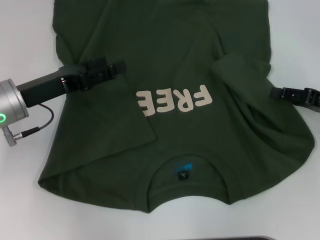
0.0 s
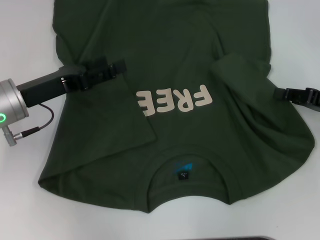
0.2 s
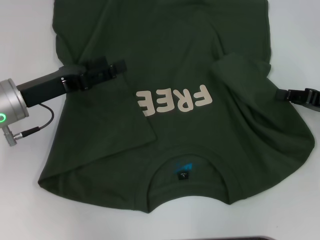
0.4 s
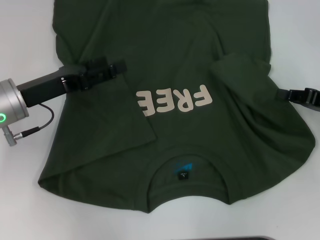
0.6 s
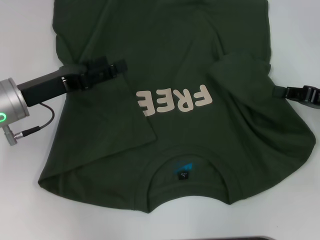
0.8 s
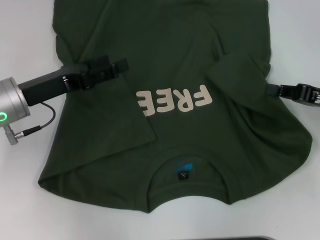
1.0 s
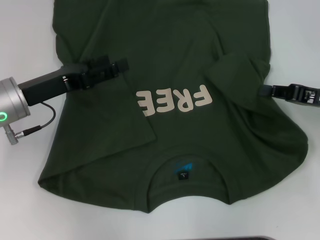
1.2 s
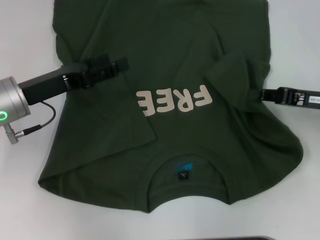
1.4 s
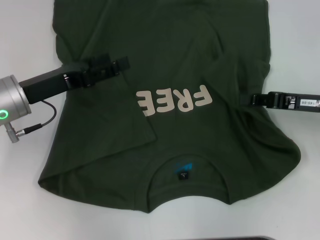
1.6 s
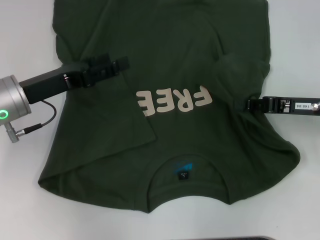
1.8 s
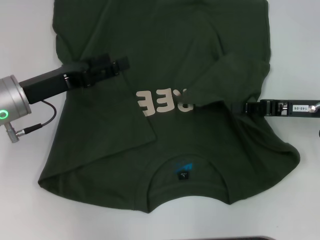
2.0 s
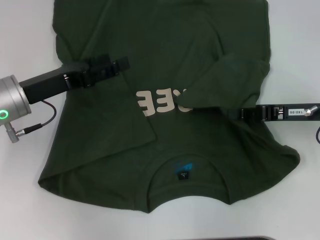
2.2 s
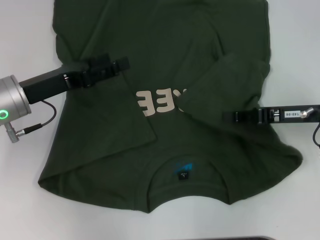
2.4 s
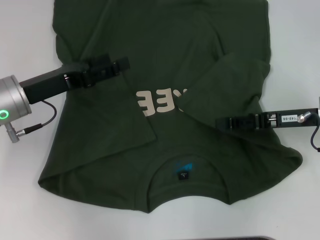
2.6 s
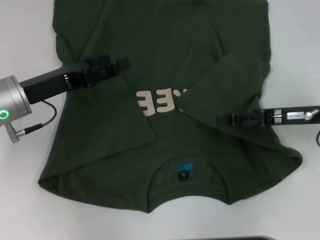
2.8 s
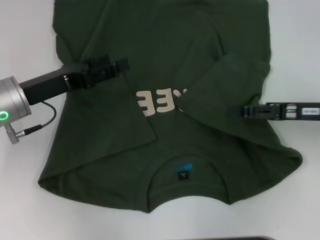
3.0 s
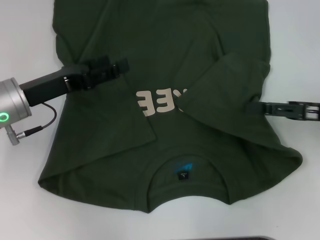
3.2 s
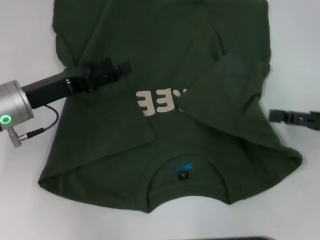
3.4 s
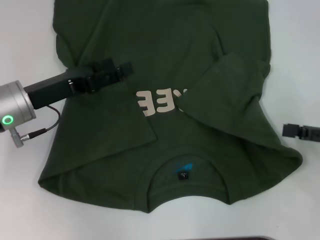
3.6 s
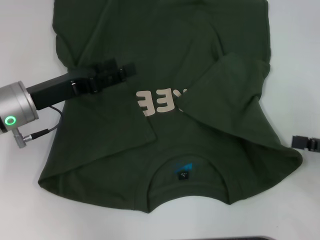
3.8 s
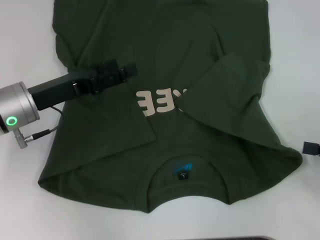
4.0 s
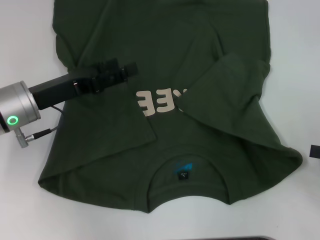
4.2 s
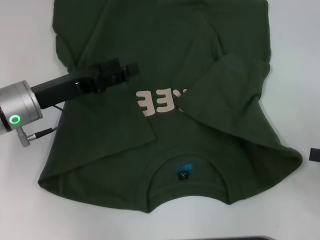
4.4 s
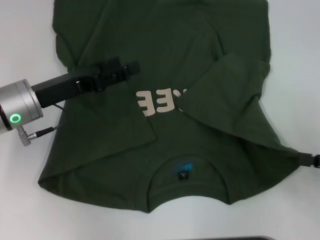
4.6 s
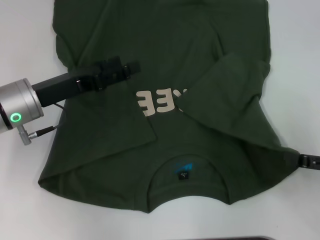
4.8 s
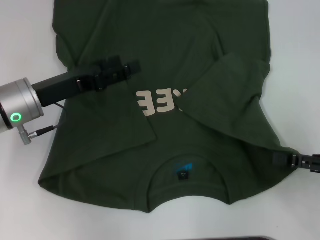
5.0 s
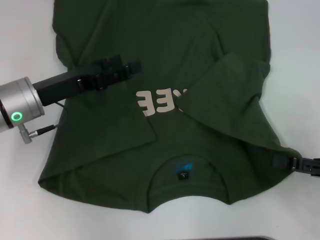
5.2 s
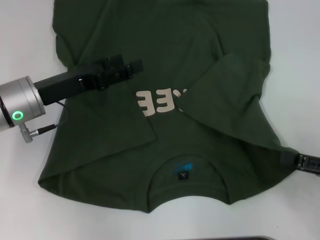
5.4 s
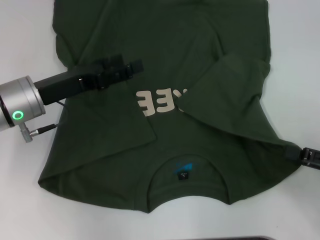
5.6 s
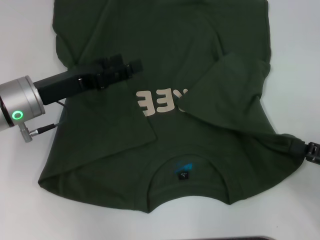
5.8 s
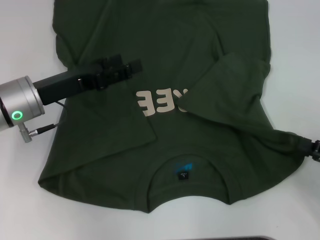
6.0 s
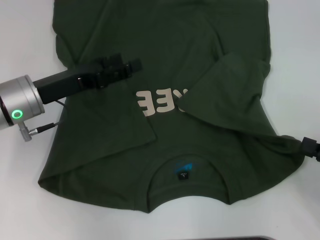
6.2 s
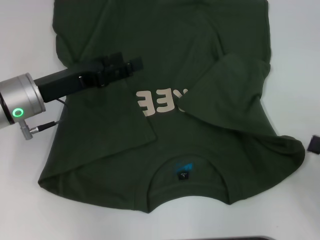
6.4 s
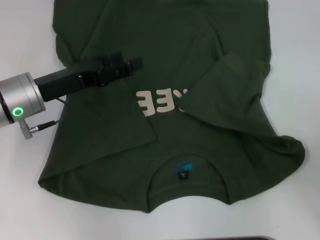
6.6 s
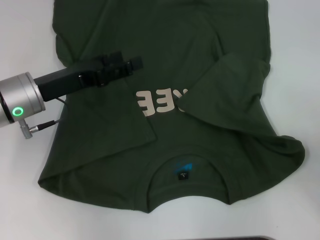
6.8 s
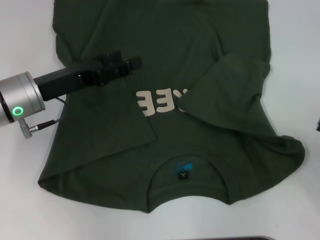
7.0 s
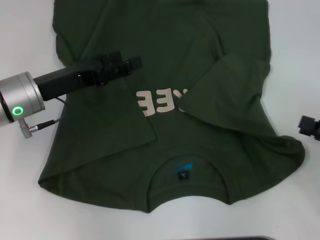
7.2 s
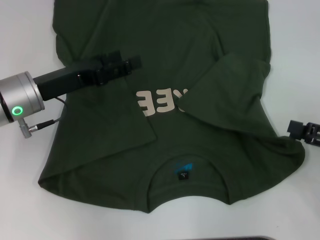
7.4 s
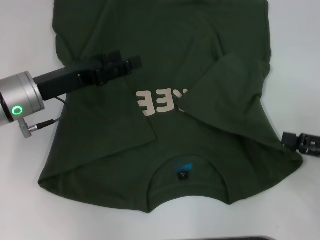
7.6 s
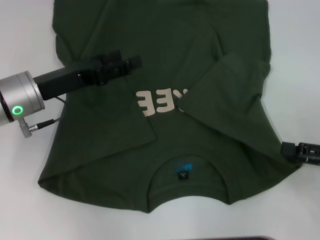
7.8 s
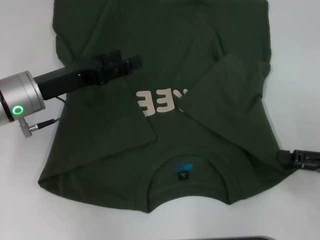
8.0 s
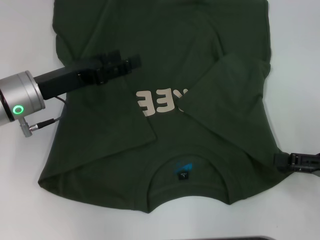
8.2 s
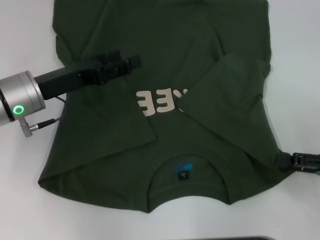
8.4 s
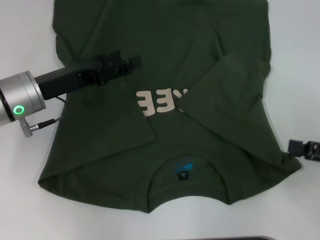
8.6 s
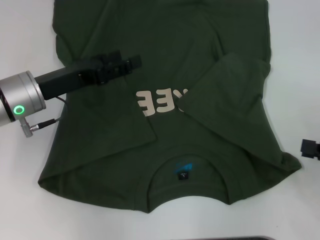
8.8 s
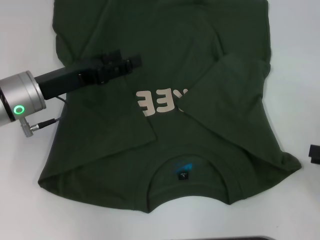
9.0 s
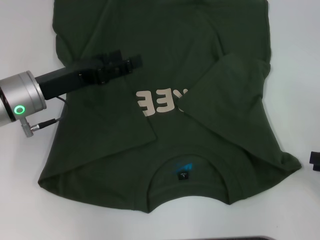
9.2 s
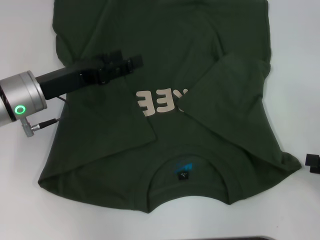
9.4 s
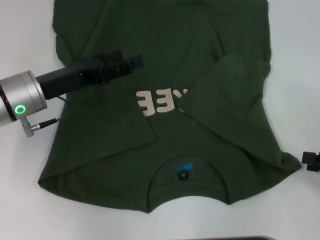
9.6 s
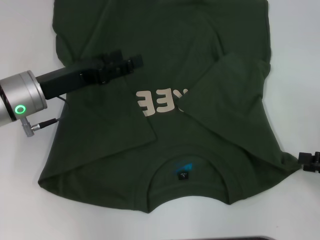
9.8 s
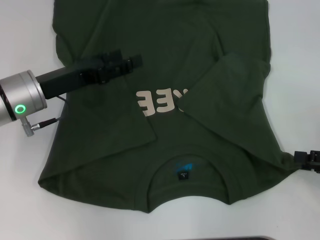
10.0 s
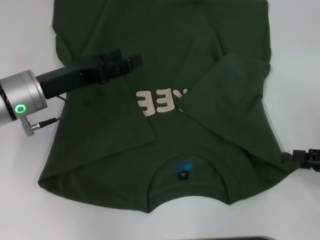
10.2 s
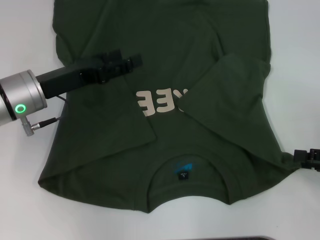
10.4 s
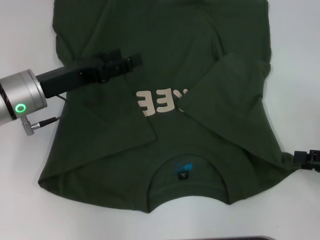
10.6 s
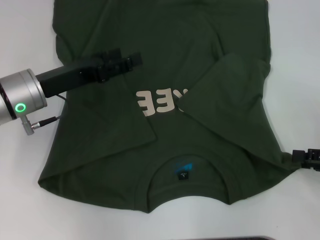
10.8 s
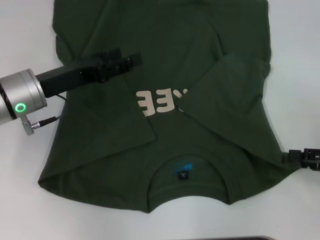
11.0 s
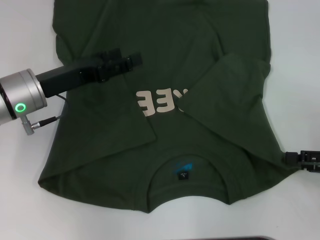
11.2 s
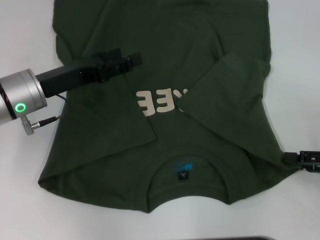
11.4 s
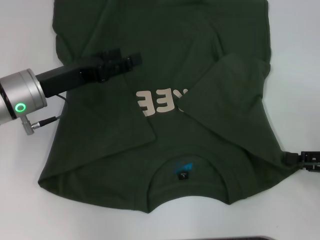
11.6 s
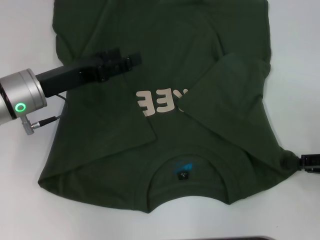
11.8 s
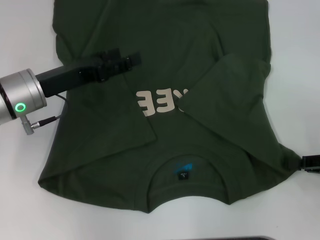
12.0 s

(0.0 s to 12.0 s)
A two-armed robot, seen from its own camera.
Step, 0.0 s - 3.4 s: Fold the bottom right sleeve with your right hand.
0.0 s - 1.6 s: The right gripper travels to the left by roughly 5 cm, and closes.
1.6 s - 3.0 s: The right gripper opens its fingers.
3.0 s - 4.4 s: The right gripper moves backward and to the right, about 15 cm.
4.4 s - 10.4 s: The grippers move only a little.
10.4 s - 12.0 s: The right gripper closes up.

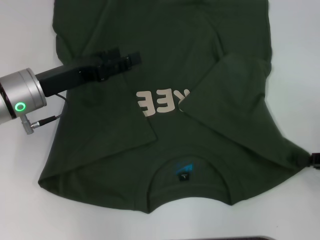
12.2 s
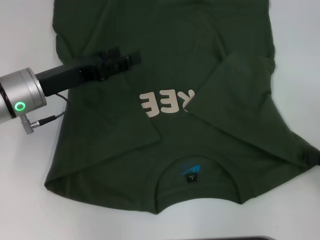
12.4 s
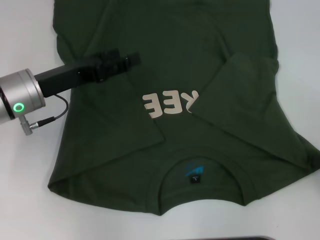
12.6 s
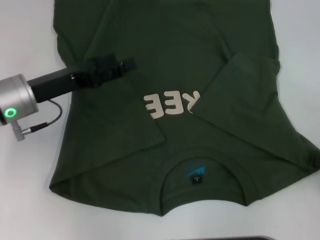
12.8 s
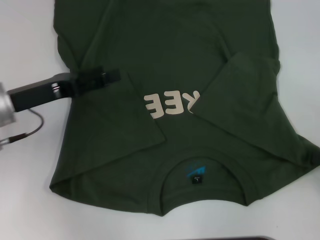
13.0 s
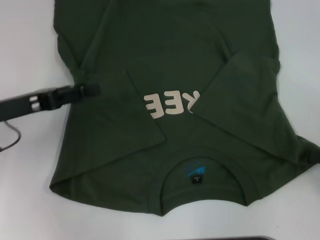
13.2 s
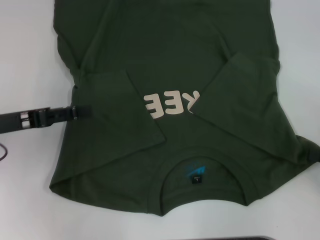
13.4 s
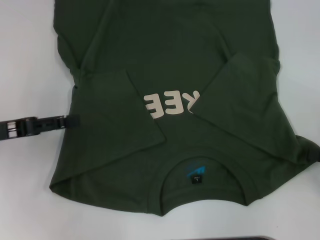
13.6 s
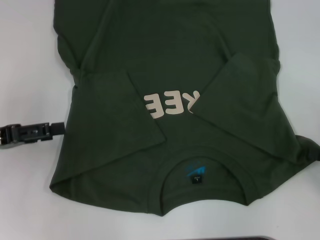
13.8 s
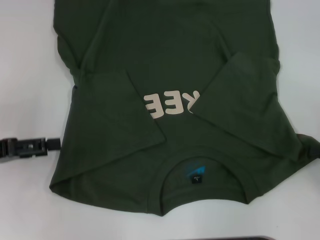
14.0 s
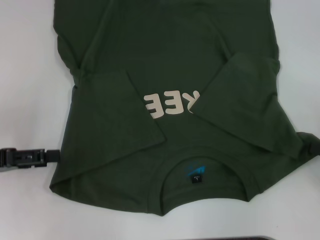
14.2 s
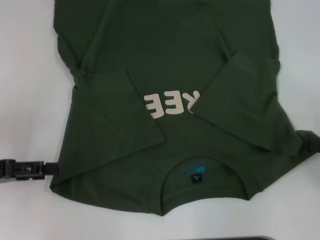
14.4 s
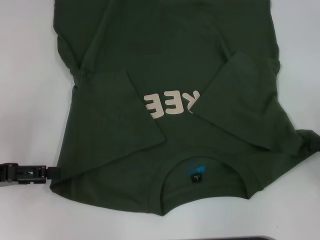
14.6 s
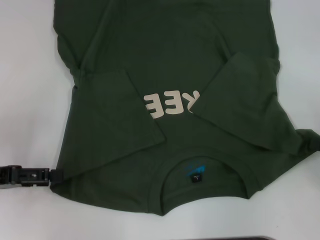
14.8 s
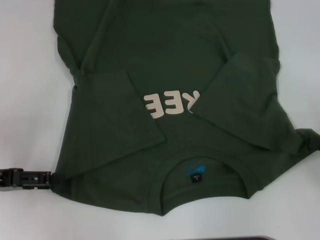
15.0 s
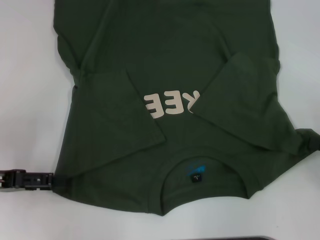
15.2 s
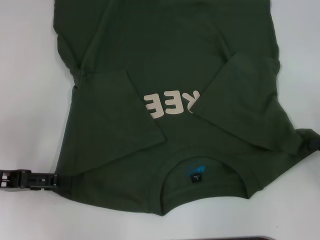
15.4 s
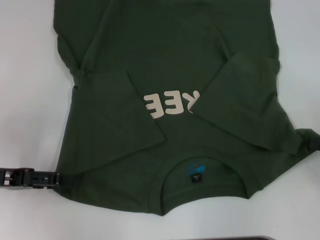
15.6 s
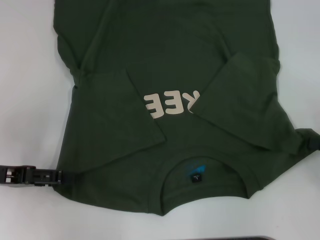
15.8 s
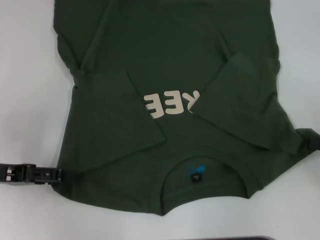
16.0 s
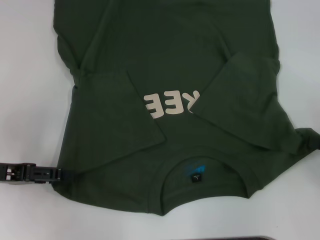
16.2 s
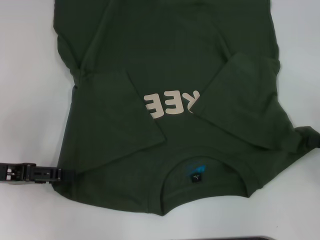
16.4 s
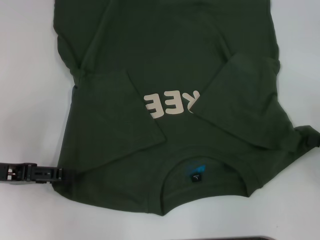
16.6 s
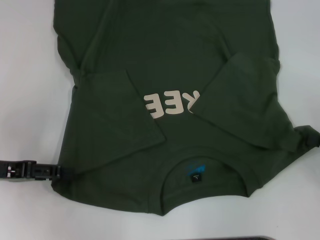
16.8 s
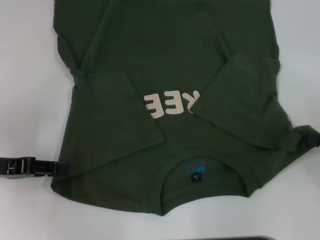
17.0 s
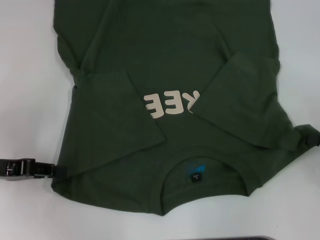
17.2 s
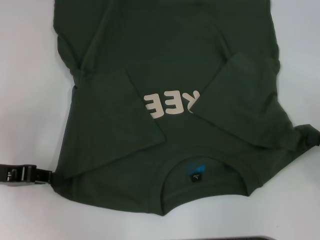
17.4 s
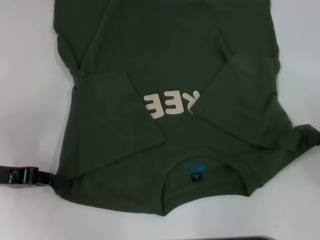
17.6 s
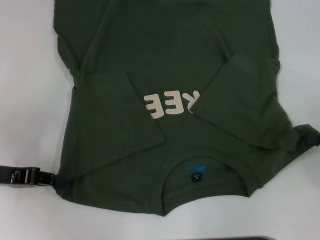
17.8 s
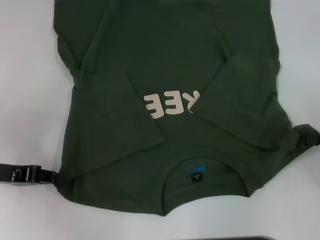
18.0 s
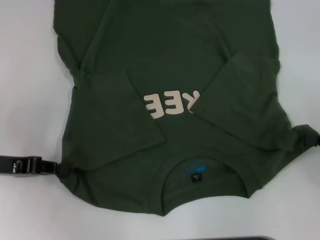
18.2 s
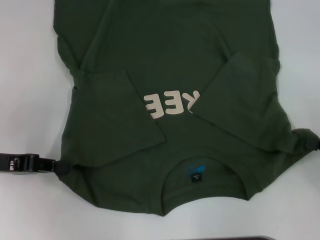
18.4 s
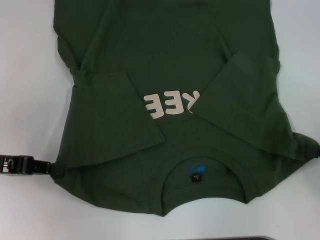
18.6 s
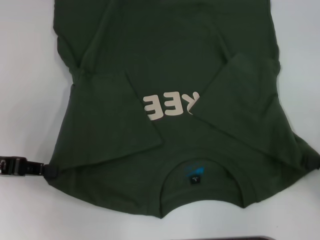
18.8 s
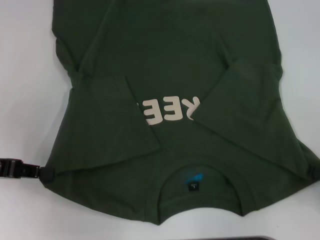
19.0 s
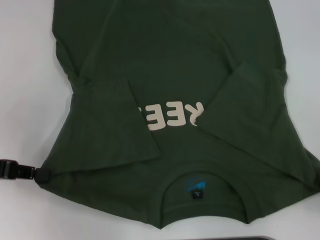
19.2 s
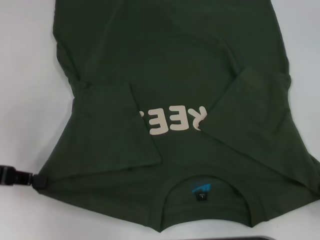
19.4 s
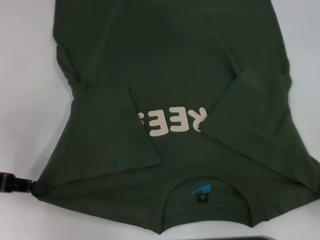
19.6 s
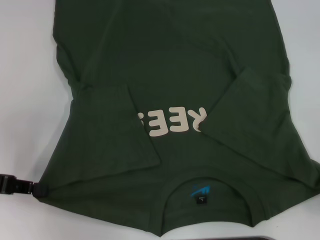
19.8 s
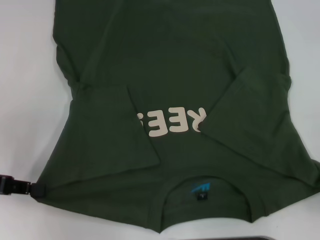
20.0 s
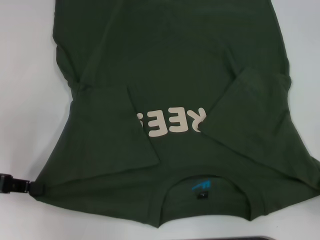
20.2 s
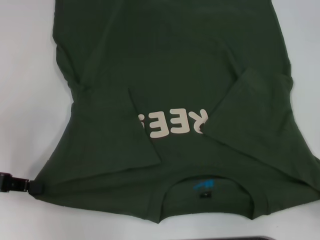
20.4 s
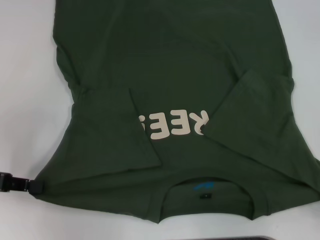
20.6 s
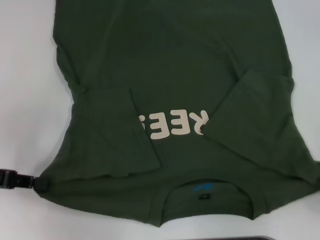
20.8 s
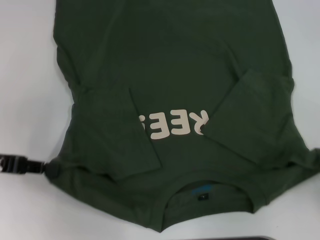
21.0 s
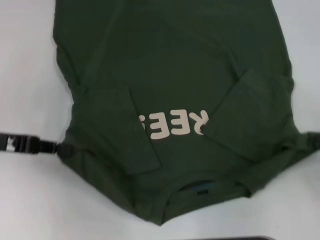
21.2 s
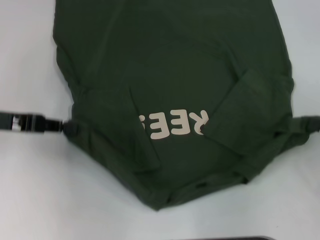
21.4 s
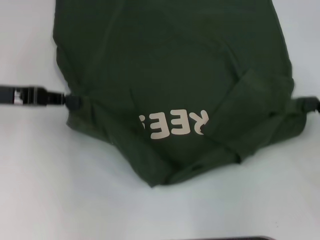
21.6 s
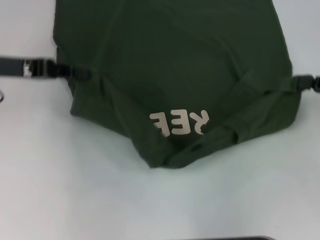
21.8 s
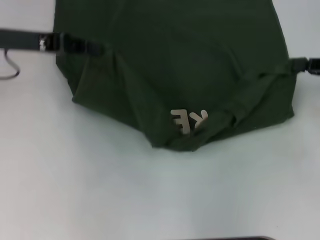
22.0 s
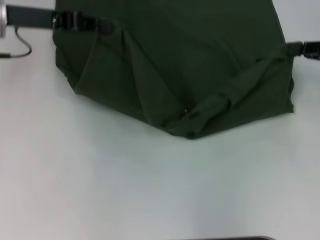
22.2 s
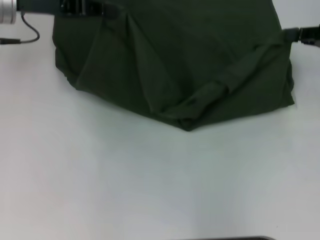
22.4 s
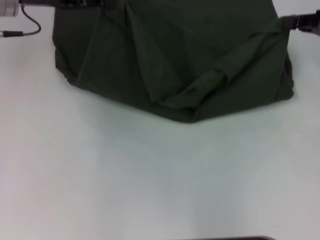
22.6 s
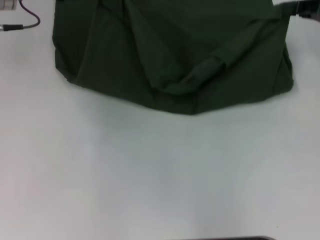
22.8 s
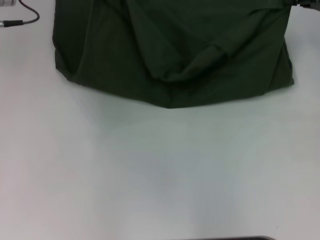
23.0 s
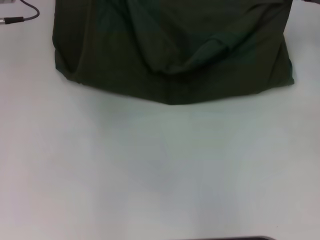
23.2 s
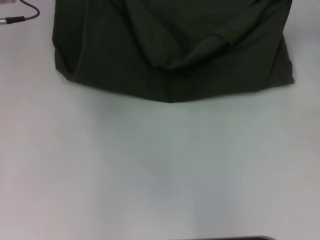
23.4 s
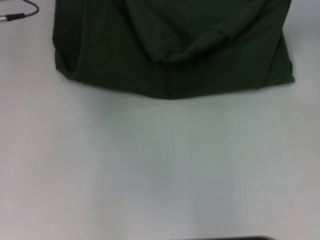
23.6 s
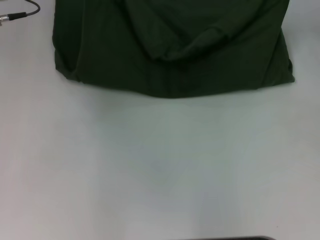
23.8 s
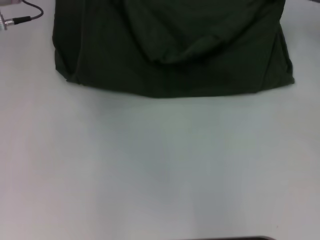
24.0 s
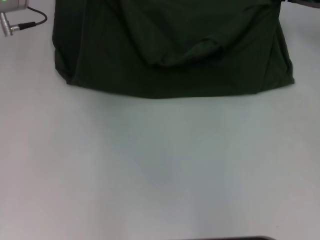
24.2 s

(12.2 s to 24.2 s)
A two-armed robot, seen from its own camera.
Step, 12.4 s - 18.4 s: Grab the bottom left corner with your left hand.
12.2 s - 13.8 s: The left gripper is displaced to the left and backward by approximately 15 cm.
13.8 s - 16.6 s: There are only small adjustments of the grippers.
16.6 s - 18.2 s: The left gripper closes its fingers.
18.2 s - 19.8 s: The right gripper moves backward, about 10 cm.
19.8 s - 21.2 s: The right gripper ends up approximately 5 cm from where it was, while the left gripper shifts by approximately 5 cm.
21.2 s - 22.6 s: The right gripper is displaced forward and upward by roughly 20 cm; the left gripper travels forward, to the right and upward by about 20 cm.
22.6 s - 24.2 s: The right gripper travels forward by approximately 5 cm.
